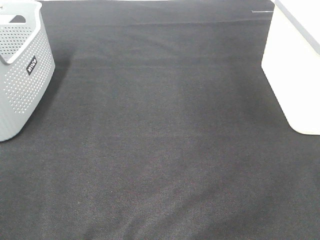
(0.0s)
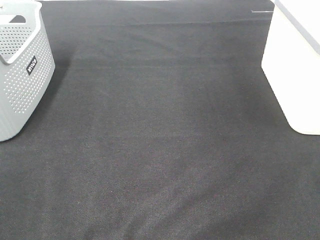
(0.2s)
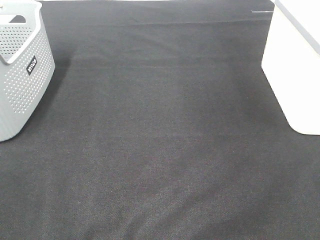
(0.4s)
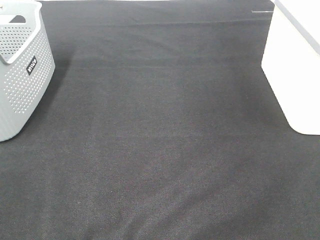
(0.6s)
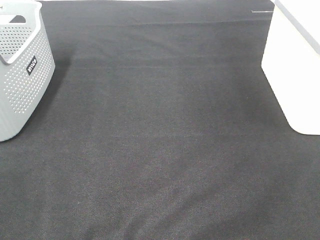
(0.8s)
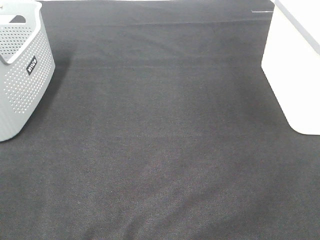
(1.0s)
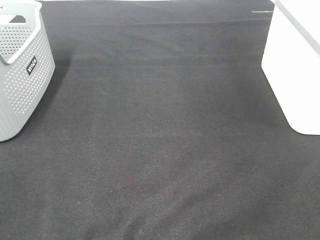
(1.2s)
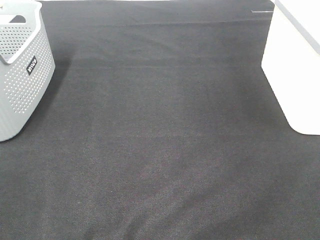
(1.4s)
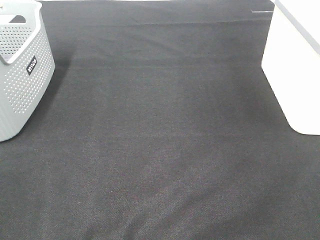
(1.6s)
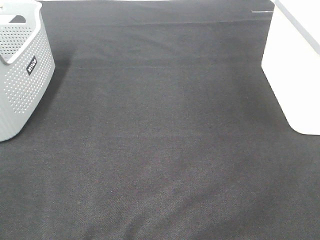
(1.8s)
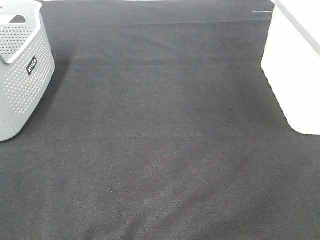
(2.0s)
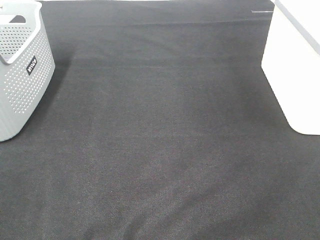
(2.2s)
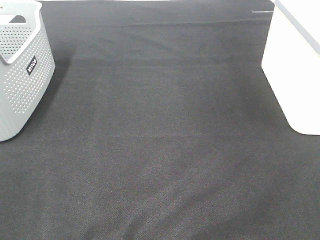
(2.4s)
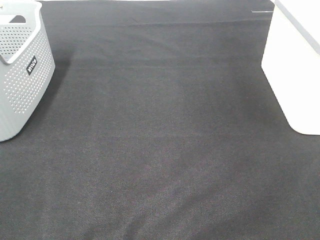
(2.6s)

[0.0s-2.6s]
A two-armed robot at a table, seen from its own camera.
1.2s to 2.6s: Both grippers stay about where they are.

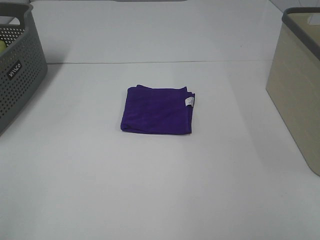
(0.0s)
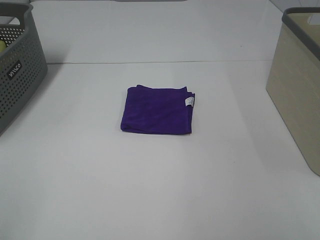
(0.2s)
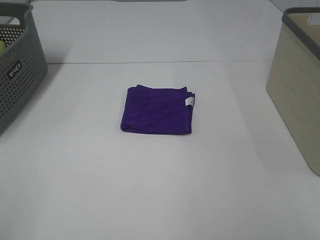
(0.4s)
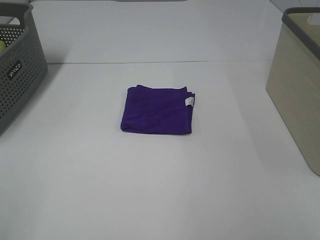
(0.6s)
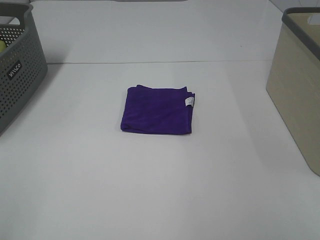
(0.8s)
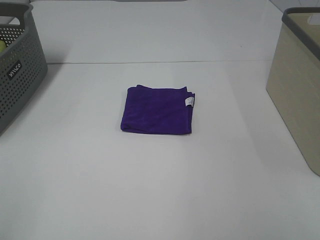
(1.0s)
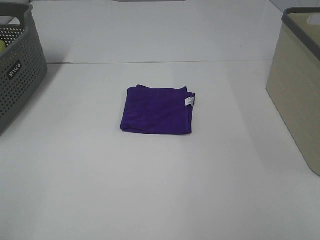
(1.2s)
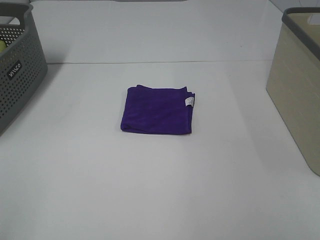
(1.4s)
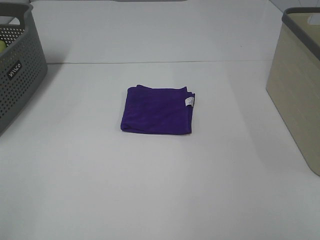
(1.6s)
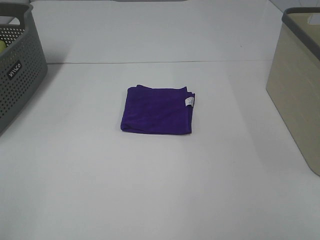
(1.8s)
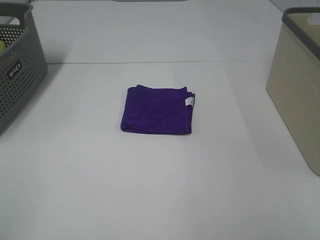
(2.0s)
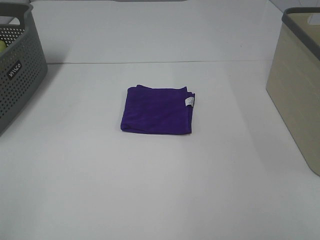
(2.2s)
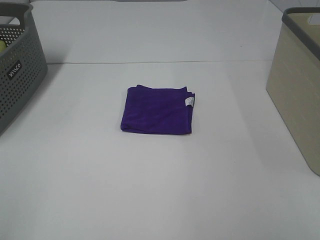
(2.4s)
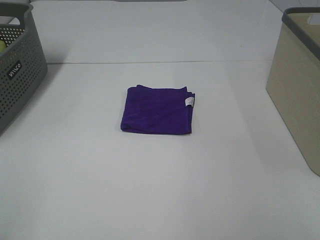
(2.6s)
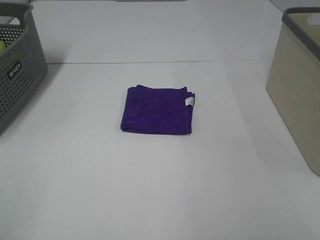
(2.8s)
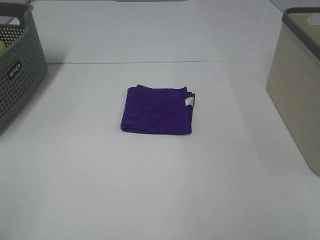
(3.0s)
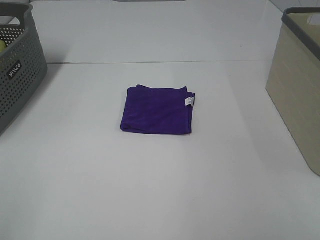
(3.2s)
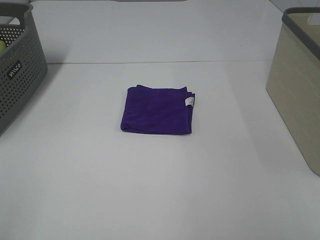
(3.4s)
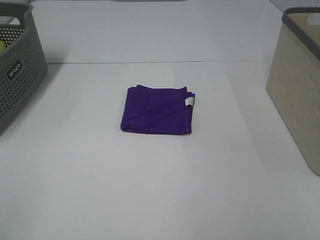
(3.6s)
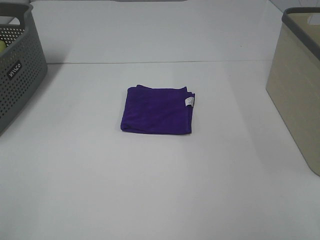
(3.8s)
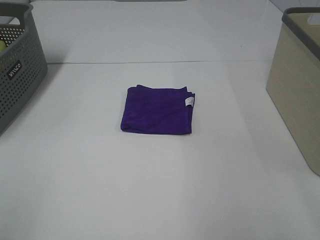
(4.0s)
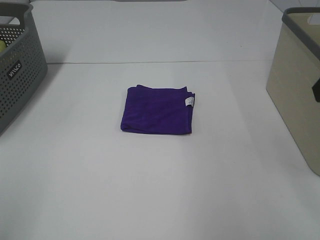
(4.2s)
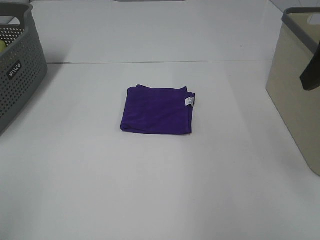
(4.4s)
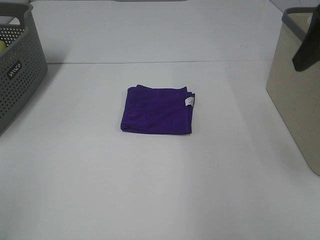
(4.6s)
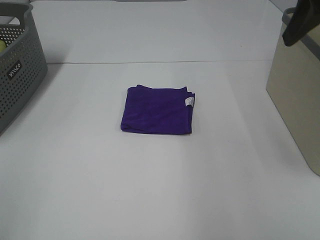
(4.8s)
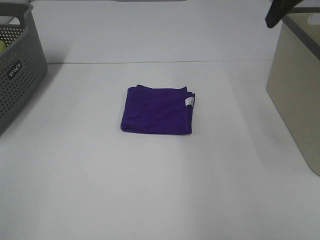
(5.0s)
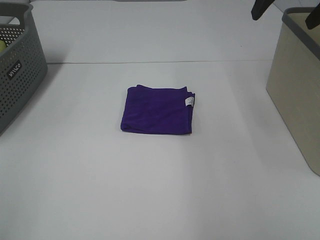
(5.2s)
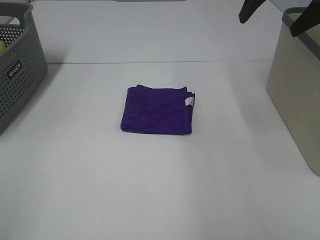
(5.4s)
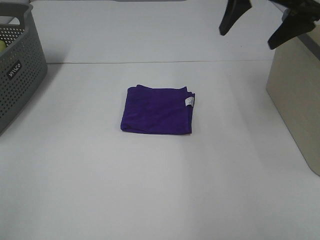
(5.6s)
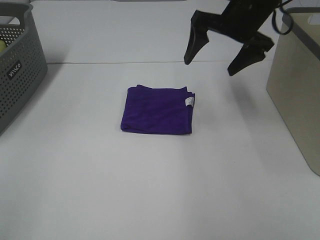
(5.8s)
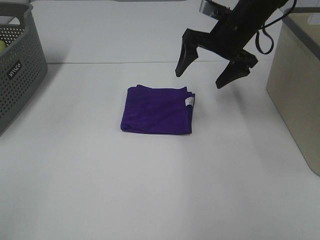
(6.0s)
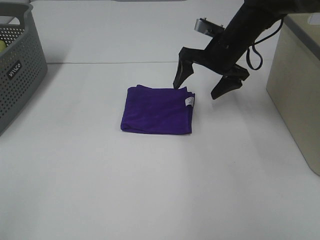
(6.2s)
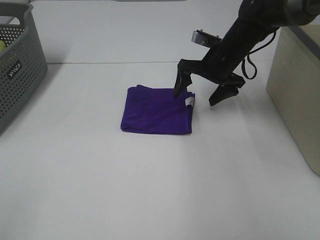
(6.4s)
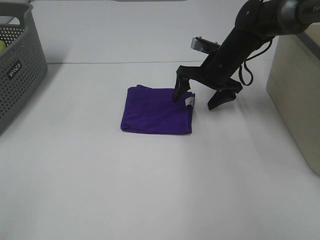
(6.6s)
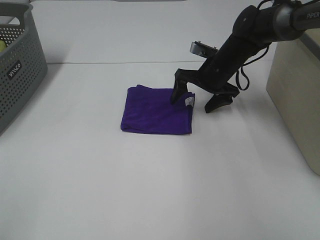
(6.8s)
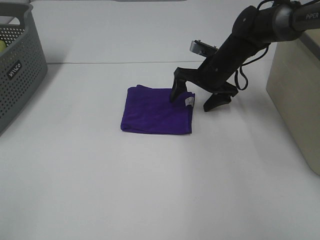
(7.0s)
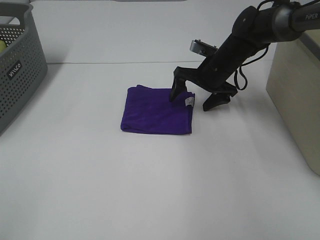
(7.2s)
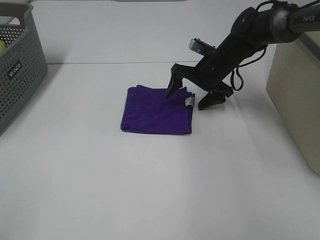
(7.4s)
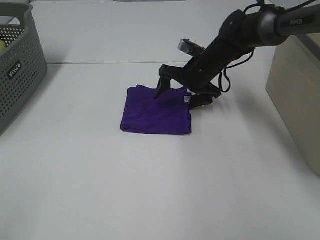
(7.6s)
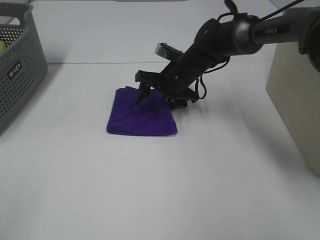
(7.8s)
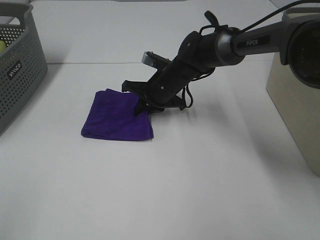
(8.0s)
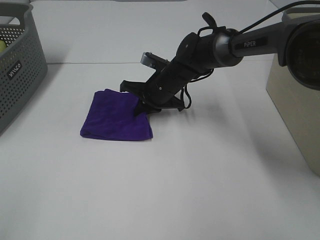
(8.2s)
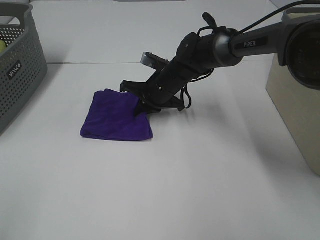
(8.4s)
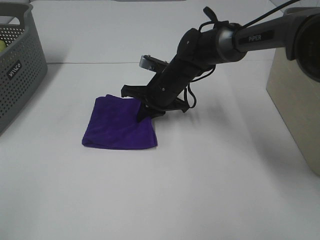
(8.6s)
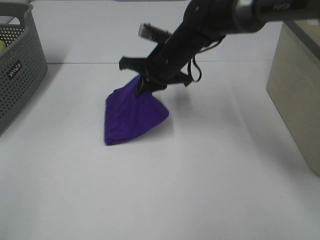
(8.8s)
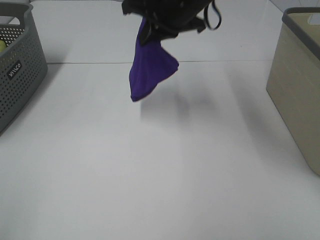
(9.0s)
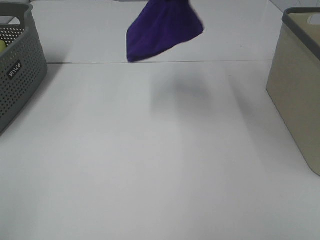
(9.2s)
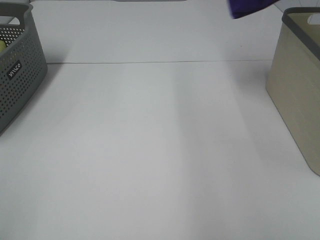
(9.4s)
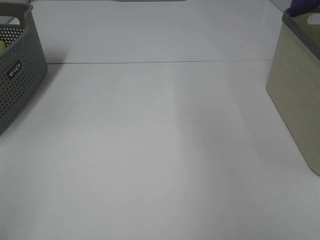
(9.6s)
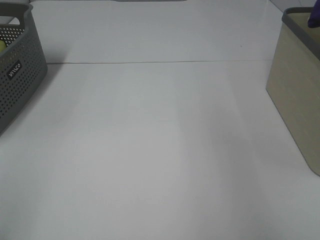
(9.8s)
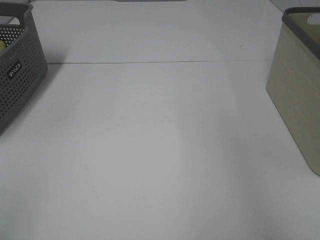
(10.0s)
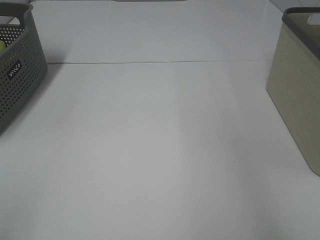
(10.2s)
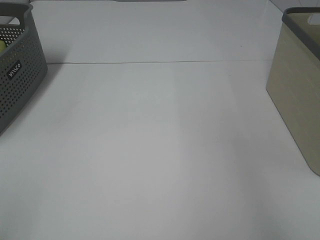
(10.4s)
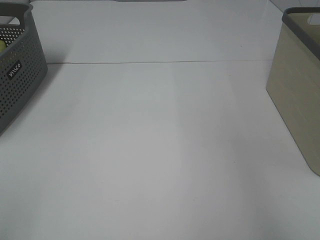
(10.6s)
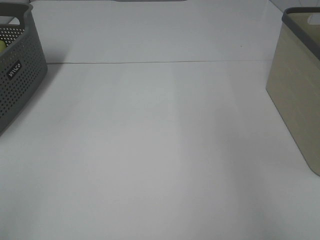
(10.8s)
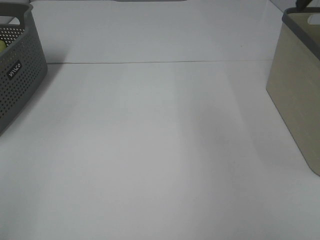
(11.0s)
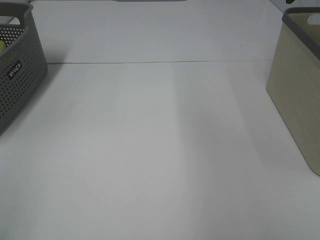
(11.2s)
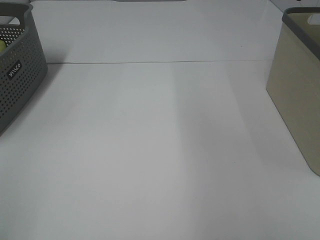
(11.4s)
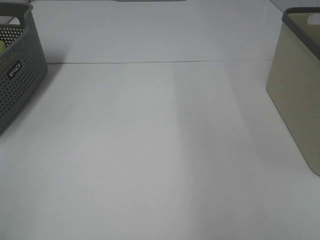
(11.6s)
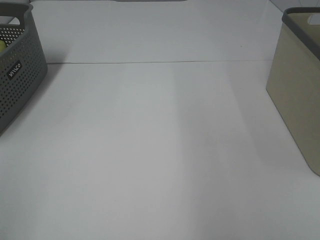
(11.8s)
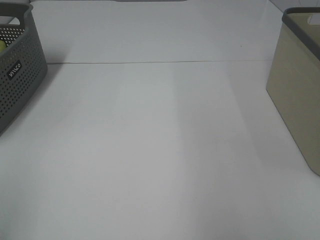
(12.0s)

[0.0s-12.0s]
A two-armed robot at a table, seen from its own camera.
Step, 0.0s to 8.0s: Right hand: grab the folded purple towel.
Step, 8.2s to 10.6s: Right hand: place the purple towel in right basket.
0.0s to 3.0s: The two grippers keep their place.
3.0s to 4.4s: The right gripper travels forward by some 20 cm.
4.4s to 6.0s: The right gripper is displaced forward, downward and to the left by some 30 cm.
6.0s to 7.6s: The right gripper goes roughly 10 cm downward.
7.6s to 9.0s: The right gripper heads upward, covering approximately 20 cm, and closes.
9.0s to 10.4s: The right gripper heads to the right, covering about 35 cm, and opens.

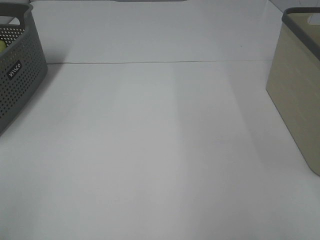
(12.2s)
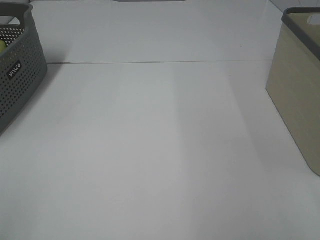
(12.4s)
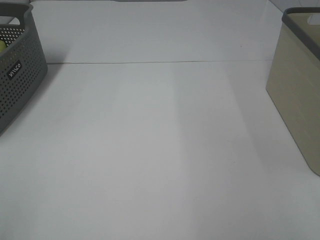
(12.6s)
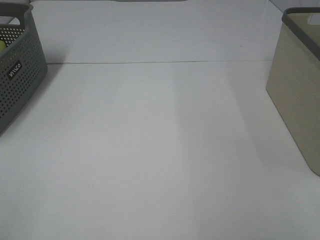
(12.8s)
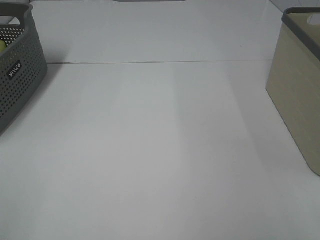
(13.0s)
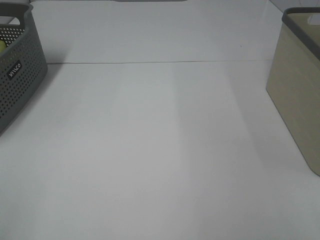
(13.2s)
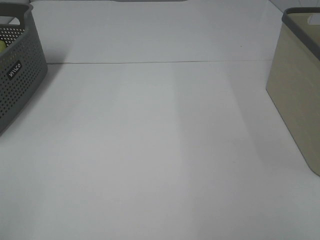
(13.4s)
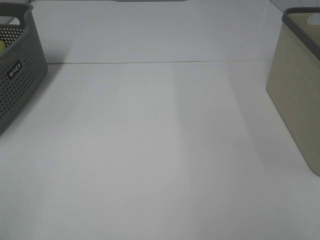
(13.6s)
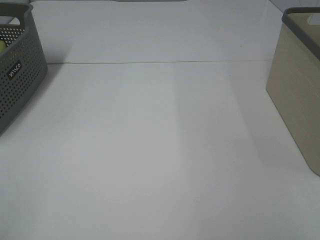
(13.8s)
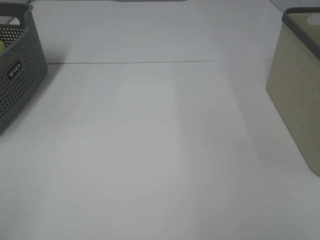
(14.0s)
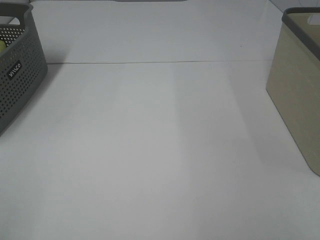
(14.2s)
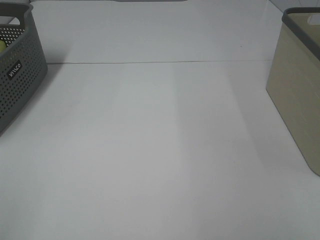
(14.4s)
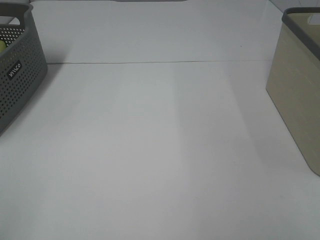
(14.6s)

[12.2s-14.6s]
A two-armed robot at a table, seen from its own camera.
13.4s to 14.6s: Neither gripper changes place.

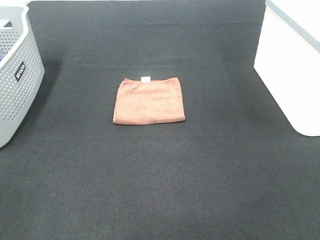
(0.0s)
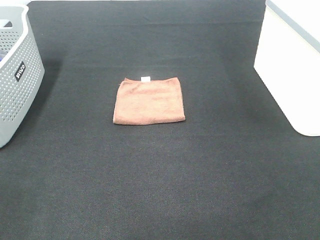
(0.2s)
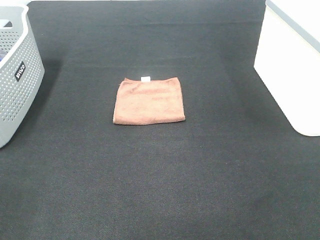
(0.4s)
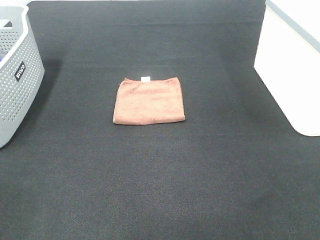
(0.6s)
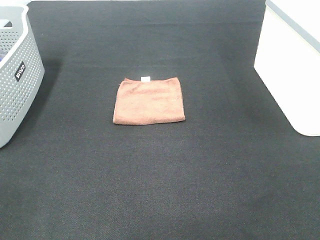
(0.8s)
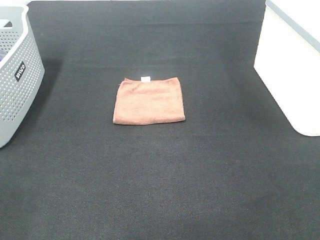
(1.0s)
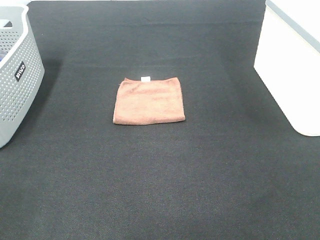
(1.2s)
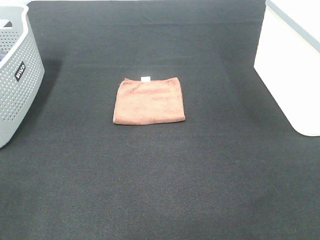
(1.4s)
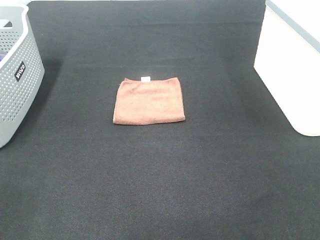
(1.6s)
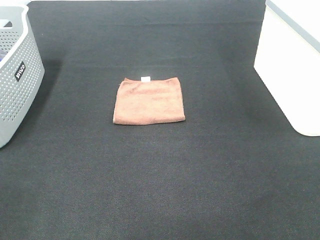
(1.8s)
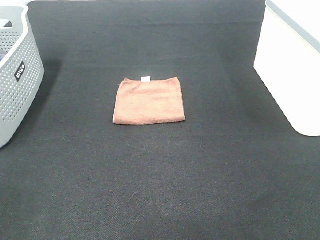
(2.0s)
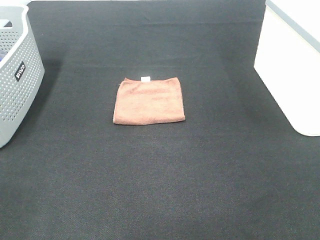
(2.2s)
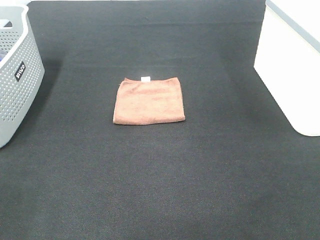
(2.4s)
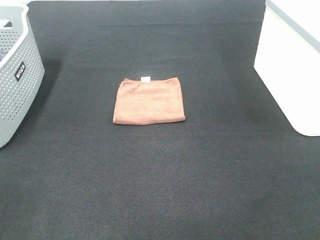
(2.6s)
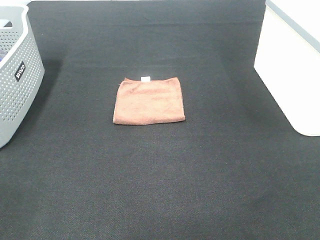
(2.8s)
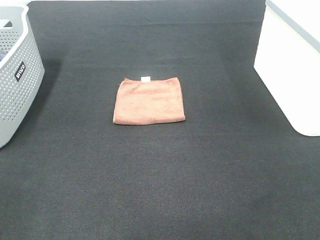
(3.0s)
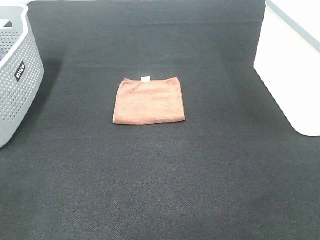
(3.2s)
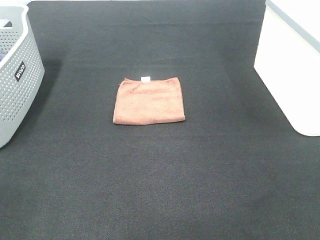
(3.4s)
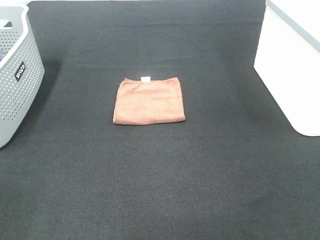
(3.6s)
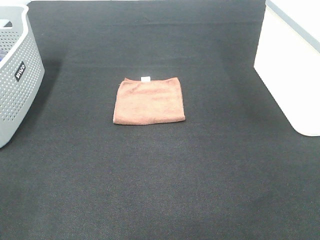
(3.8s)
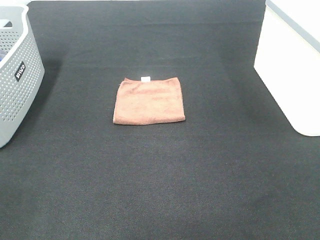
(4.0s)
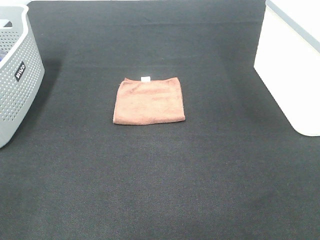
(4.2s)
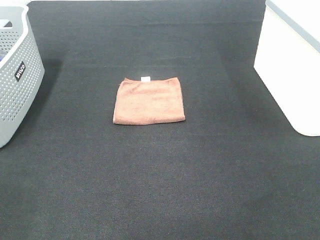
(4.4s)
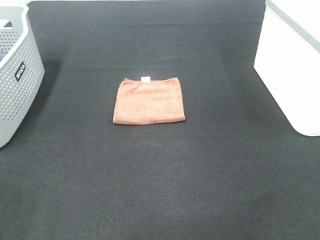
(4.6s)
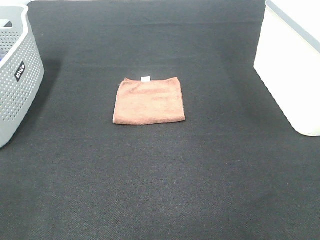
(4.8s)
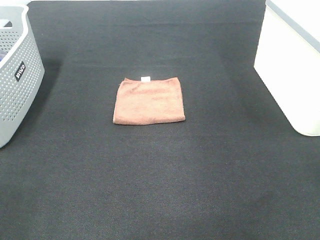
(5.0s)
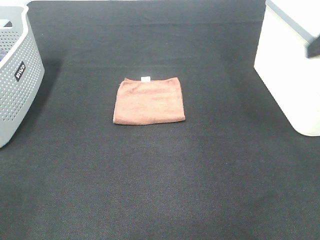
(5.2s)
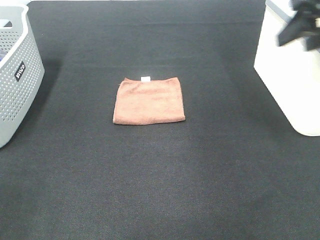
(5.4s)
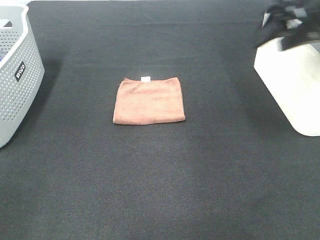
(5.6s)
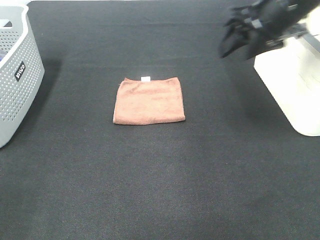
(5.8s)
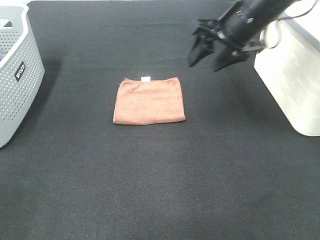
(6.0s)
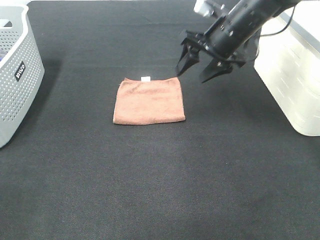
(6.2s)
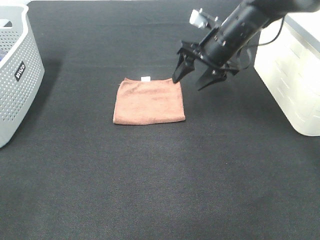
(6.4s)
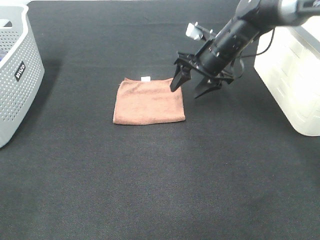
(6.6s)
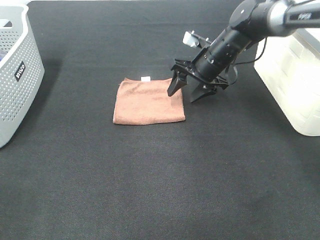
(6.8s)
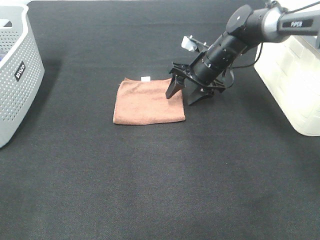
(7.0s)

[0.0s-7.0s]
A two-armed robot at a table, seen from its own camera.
0.0s to 4.2s: Both grippers stay about where they are.
4.2s to 5.6s: The right gripper is displaced forward by about 35 cm.
5.6s to 7.0s: The right gripper shifts roughly 25 cm downward, forward and to the left.
